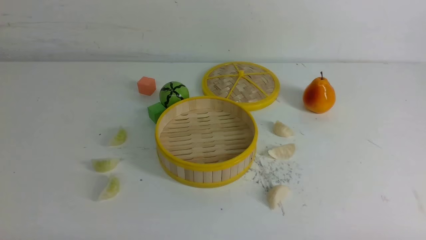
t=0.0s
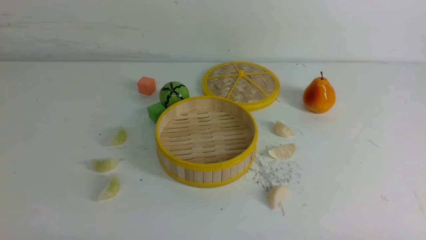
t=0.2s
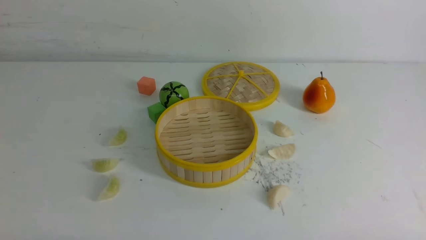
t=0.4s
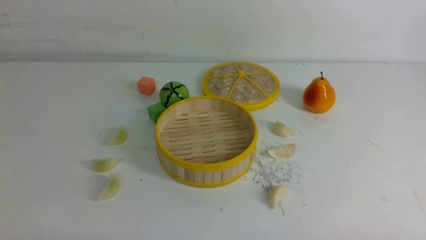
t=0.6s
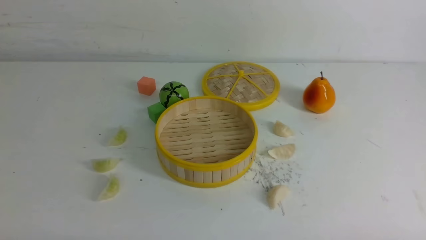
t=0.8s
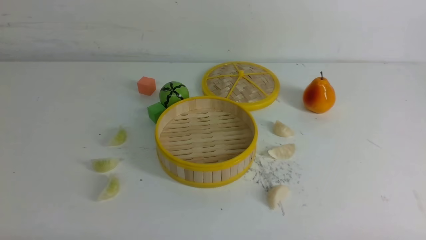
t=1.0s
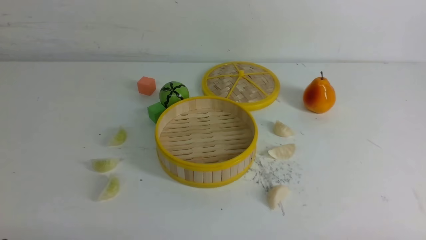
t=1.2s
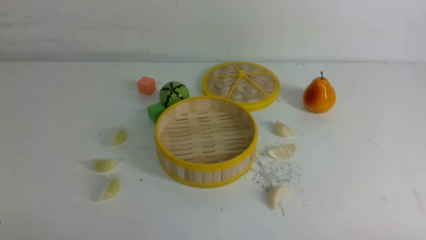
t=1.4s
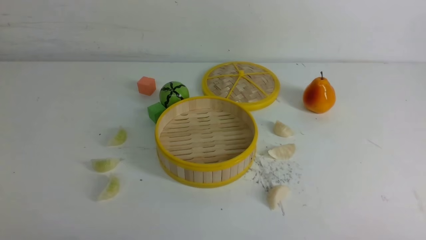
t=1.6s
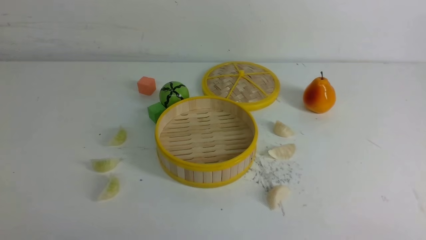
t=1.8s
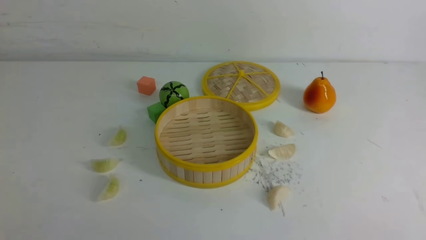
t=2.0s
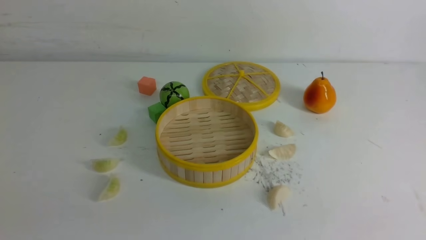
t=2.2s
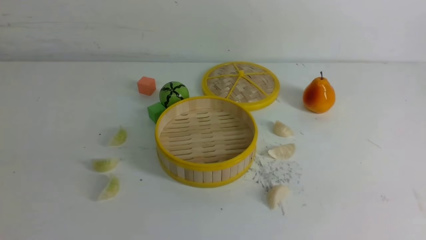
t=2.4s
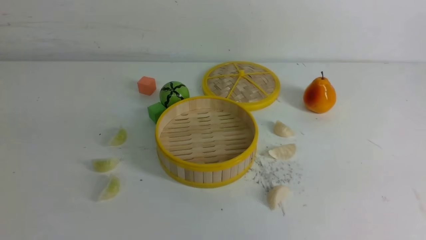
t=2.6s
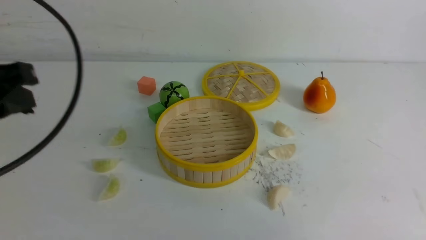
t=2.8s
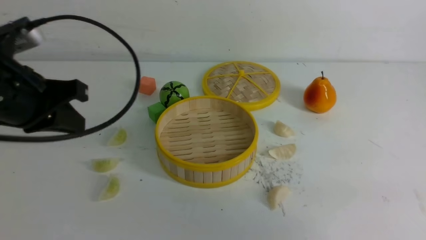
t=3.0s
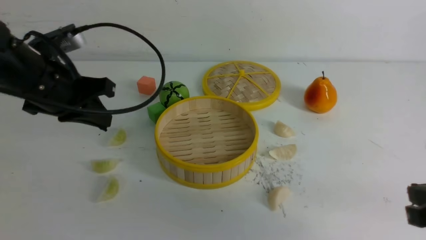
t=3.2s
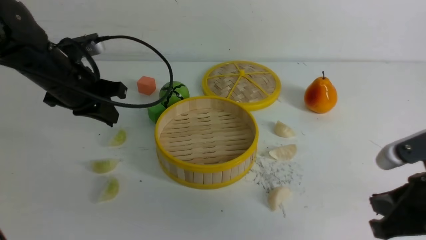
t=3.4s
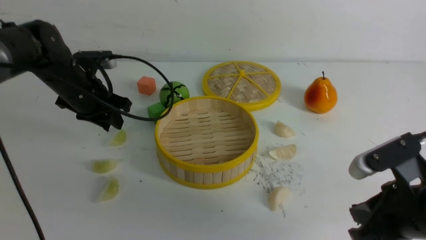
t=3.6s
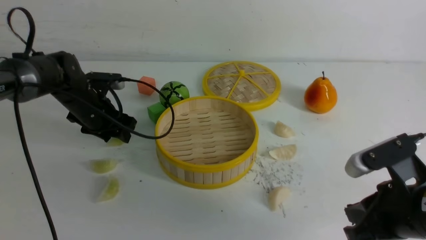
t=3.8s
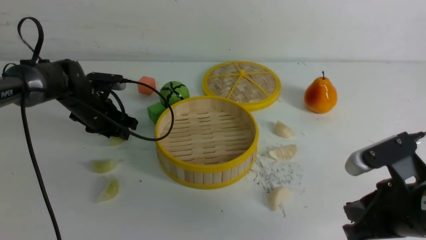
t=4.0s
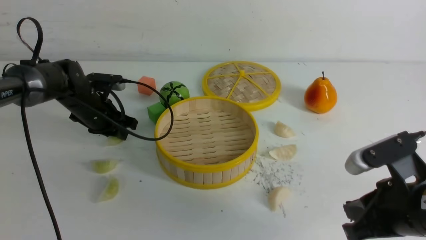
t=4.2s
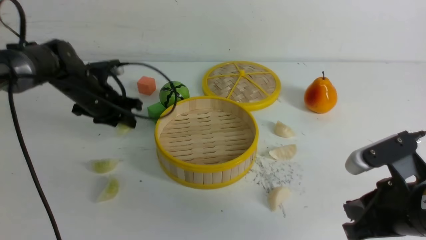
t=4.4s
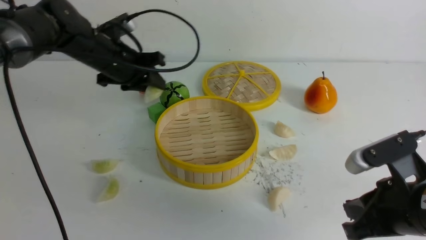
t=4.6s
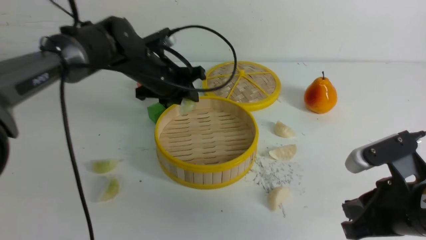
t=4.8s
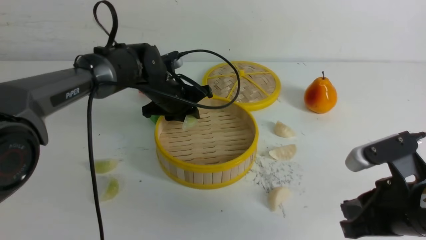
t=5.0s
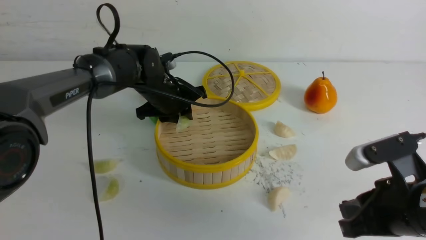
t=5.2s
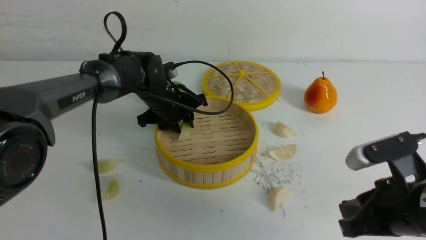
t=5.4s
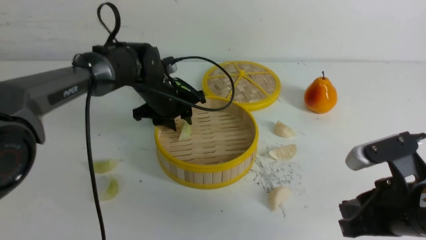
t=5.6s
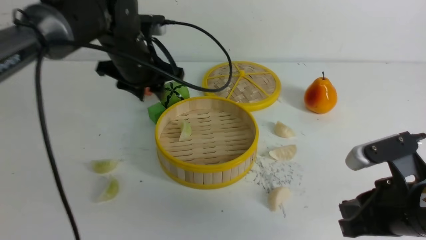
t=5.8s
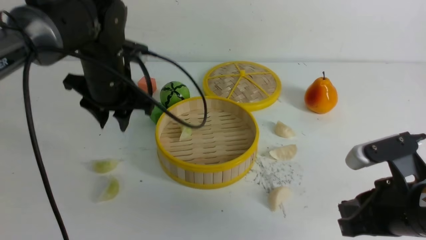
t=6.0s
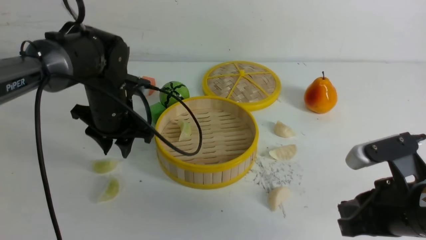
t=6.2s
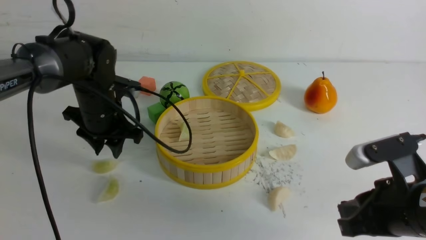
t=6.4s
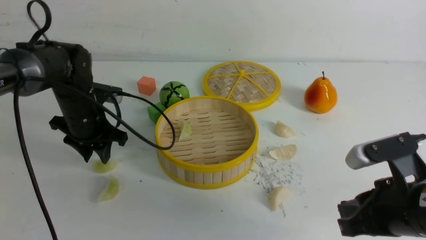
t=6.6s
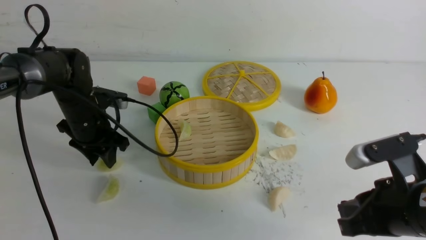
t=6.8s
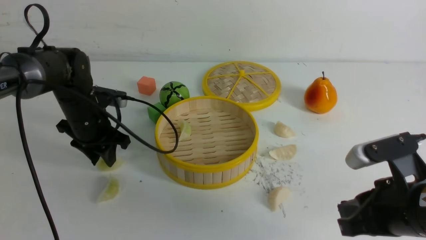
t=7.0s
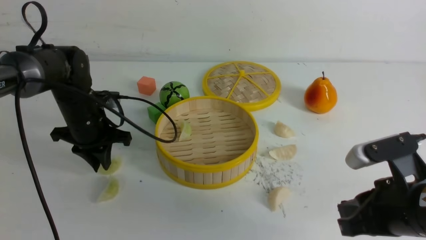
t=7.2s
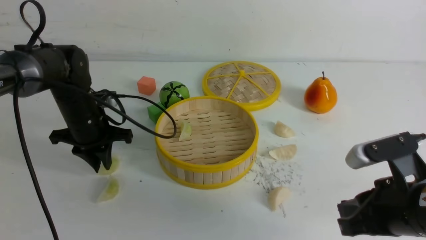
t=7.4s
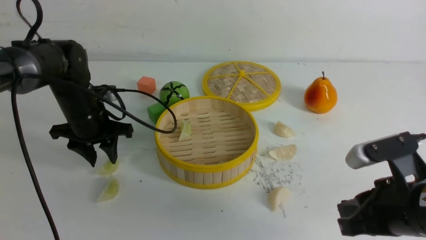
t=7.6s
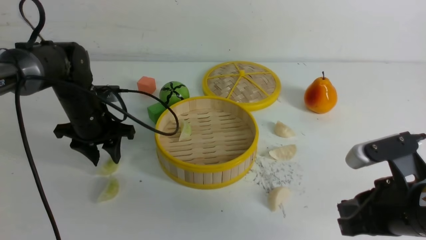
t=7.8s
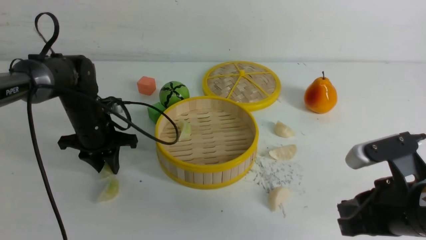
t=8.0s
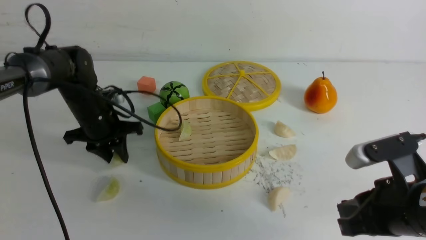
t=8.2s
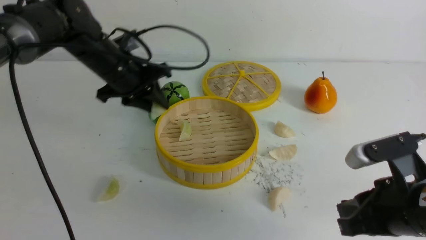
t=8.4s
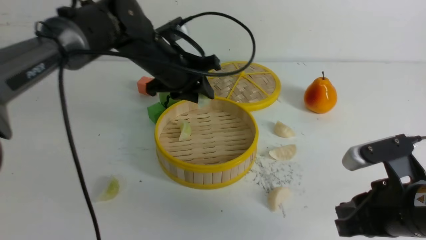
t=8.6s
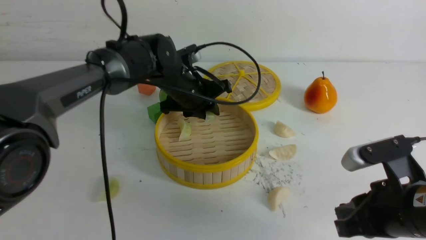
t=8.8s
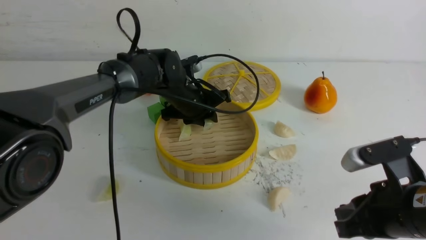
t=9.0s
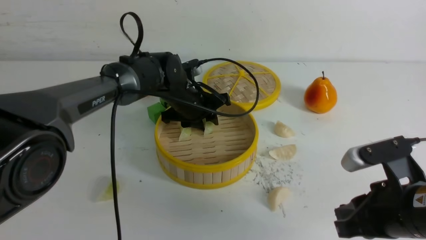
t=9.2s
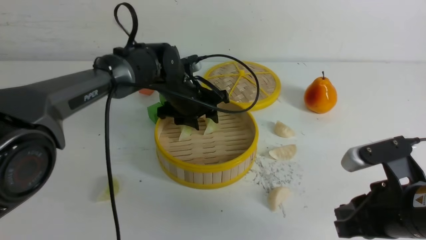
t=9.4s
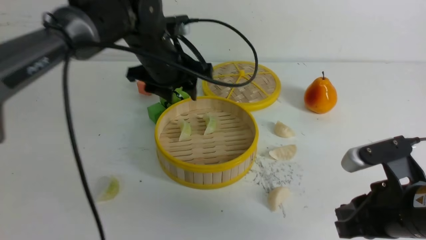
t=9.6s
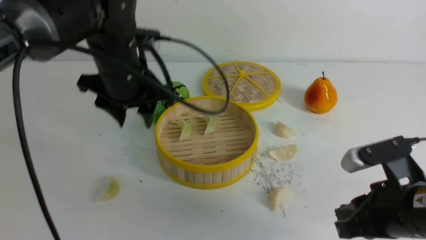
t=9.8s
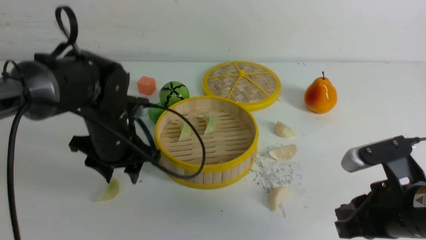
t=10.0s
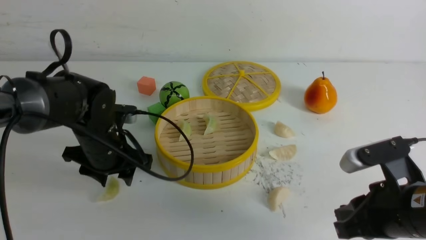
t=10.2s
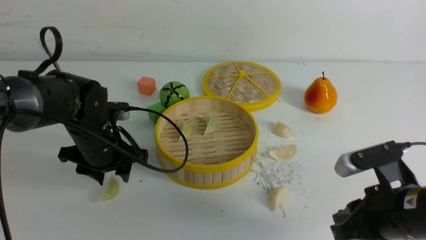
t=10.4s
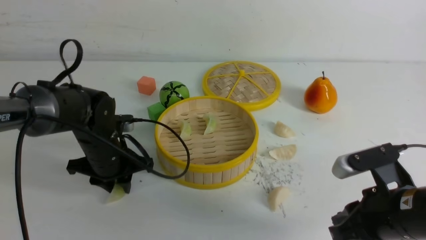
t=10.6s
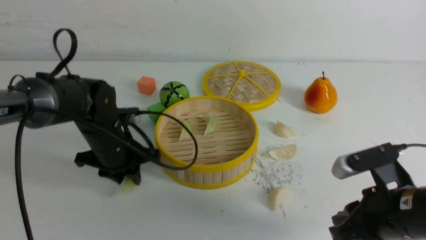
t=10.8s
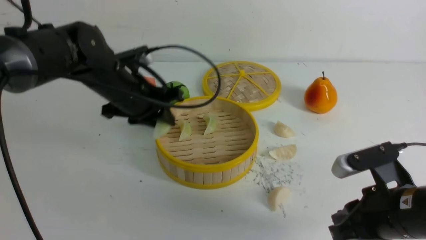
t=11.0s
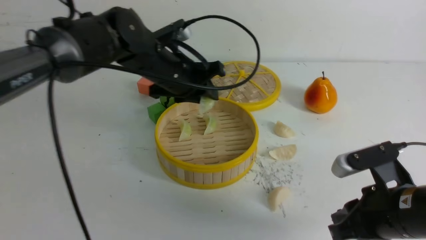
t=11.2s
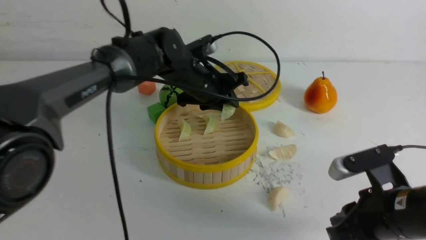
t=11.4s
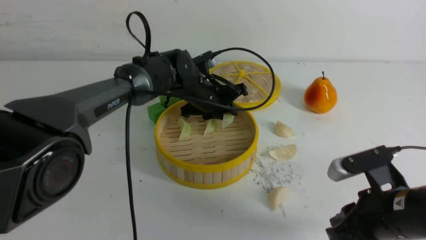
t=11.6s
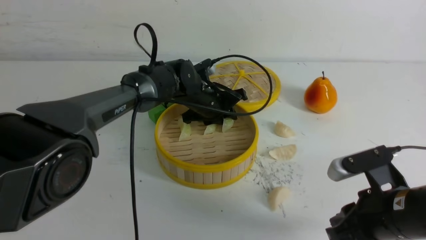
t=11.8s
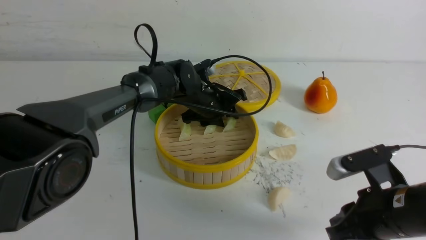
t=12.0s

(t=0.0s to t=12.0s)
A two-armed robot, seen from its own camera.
Task of the whole recording: put the dumplings into the steamer on the white table.
Step, t=0.0s - t=4.4s: use the left arm to grab a dumpling.
Step, t=4.6s - t=5.4s: use the left arm to put the dumpling into the steamer.
Step, t=5.8s - t=8.0s: use the left arm to grab a dumpling.
Step, t=8.2s - t=9.2s: use the left arm to put the dumpling into the steamer.
Step, t=9.4s - t=10.6s: use the left arm to grab a dumpling.
t=1.6s - t=3.0s: The left gripper is displaced forward and upward by approximately 25 cm, and closes its fingers; the right gripper goes some 10 cm forward and upward.
t=3.0s - t=4.4s: The left gripper is displaced forward and downward by about 20 cm, and opens up; the right gripper heads to the left and downward, covering about 10 cm.
t=4.4s - t=6.0s: The left gripper shifts about 10 cm backward, to the right and upward.
t=6.0s - t=7.6s: The left gripper shifts approximately 10 cm downward and to the left.
t=7.6s - t=9.0s: The left gripper travels to the right by roughly 15 cm.
t=9.0s - t=10.4s: The left gripper heads to the left and backward, covering about 15 cm.
t=10.4s - t=12.0s: The left gripper moves to the right and forward, approximately 20 cm.

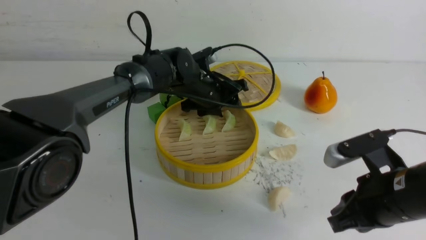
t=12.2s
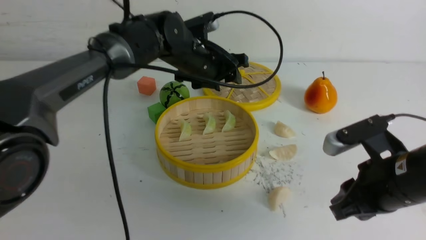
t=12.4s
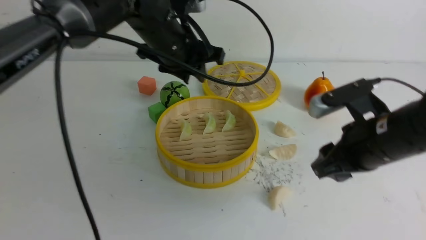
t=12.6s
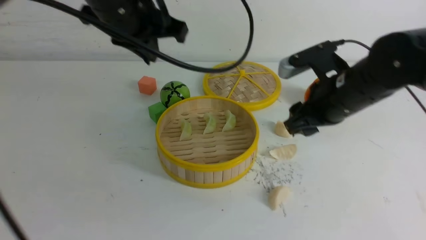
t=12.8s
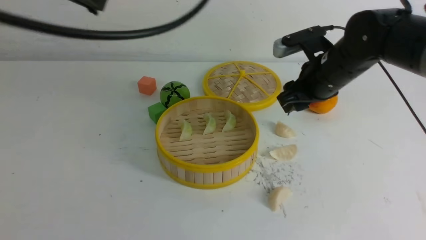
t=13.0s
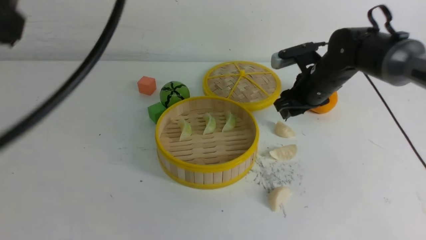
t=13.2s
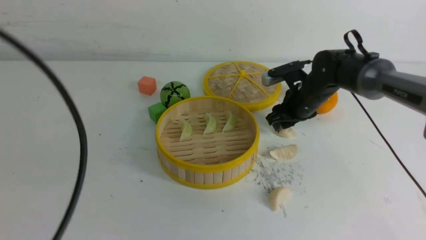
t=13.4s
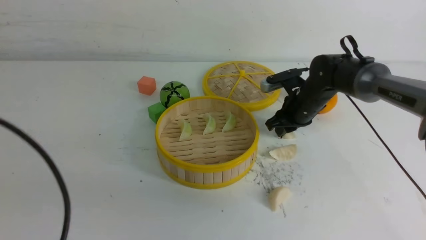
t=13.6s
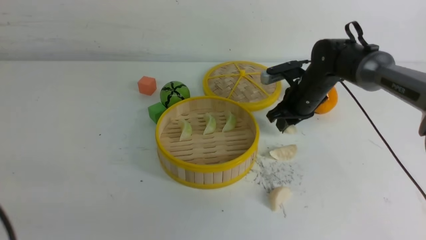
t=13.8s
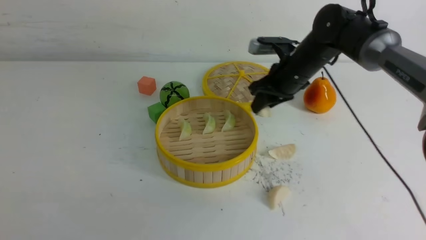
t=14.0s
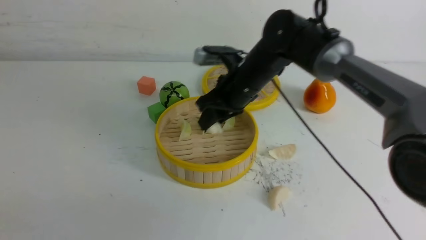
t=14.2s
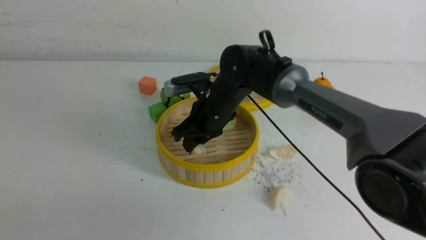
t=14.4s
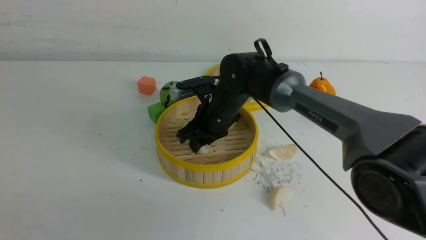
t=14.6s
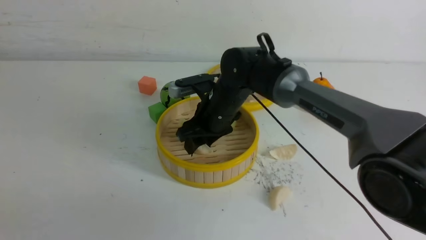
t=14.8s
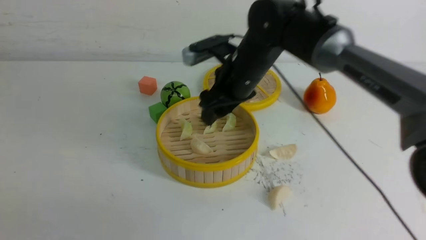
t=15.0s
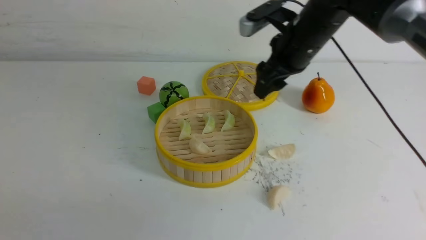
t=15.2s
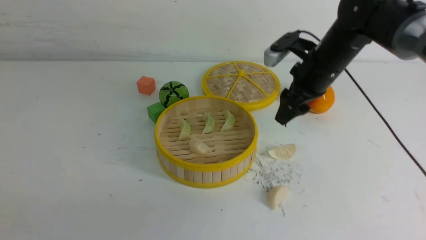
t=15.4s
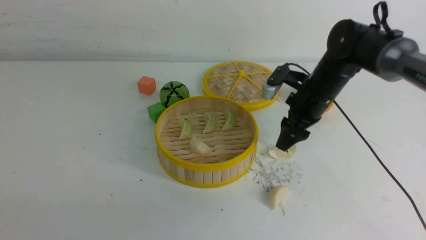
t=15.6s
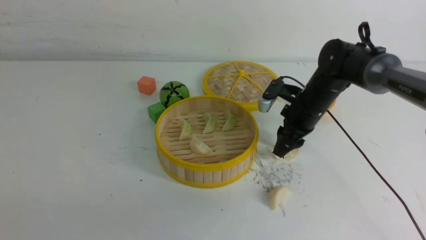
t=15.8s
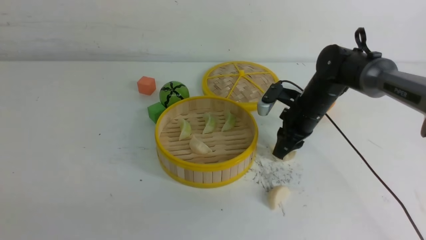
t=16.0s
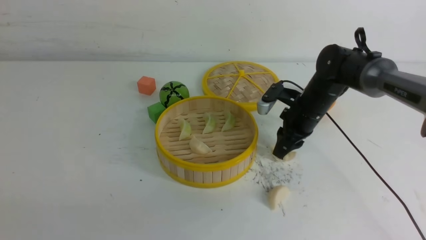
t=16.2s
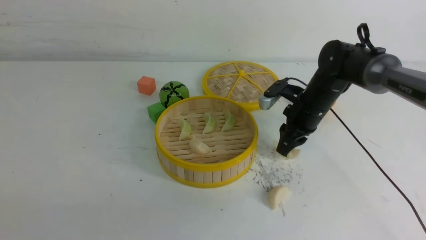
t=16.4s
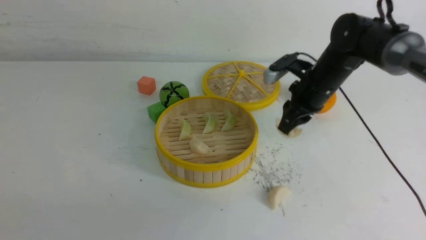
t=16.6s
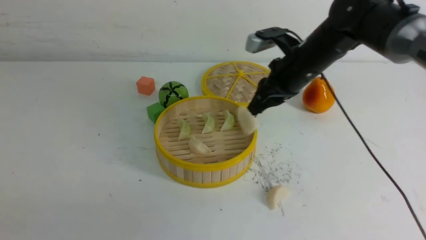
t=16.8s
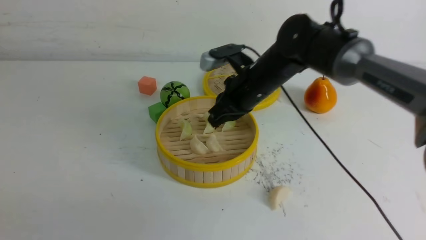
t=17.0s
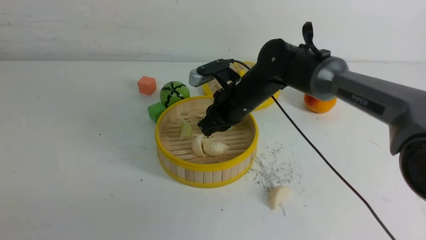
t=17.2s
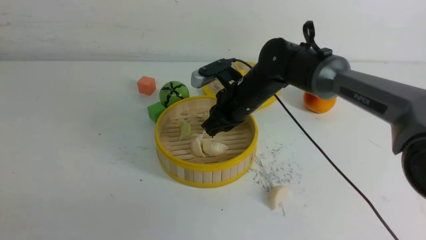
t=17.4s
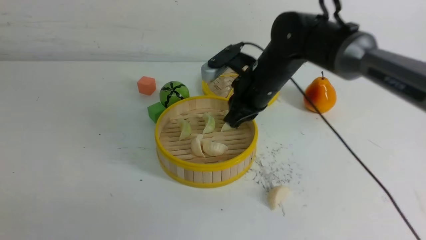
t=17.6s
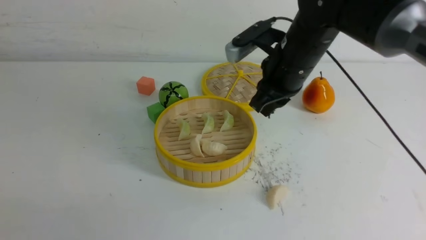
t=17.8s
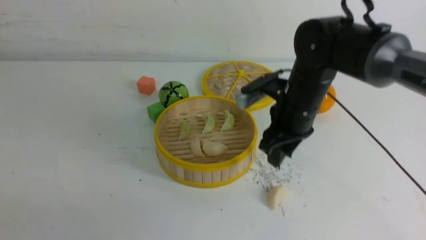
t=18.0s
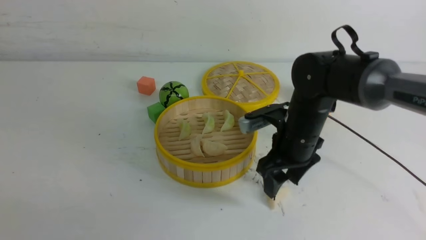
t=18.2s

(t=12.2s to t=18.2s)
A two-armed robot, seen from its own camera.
Task of the whole recording: put the dumplings into the steamer on the white table.
Step, t=12.4s - t=13.6s: use the right arm to grab a dumpling.
Step, t=13.8s - t=14.8s: use the right arm to put the dumpling into the steamer.
Step, t=15.0s - t=16.4s: use the right arm to grab a dumpling.
Step, t=16.6s - t=17.4s: use the right arm to put the dumpling into the steamer.
t=12.2s - t=13.8s: The right gripper travels forward by roughly 25 cm, and opens, then closes again. Meanwhile the left gripper shifts about 50 cm backward and to the left, and closes.
t=13.8s - t=15.2s: The right gripper goes about 10 cm upward, moves roughly 15 cm to the left and comes back, and opens, while the left gripper shifts by some 5 cm.
t=15.2s - t=16.6s: The right gripper heads downward, covering some 5 cm, and closes its fingers.
t=16.6s - t=18.2s: The right gripper goes some 10 cm backward, moves approximately 10 cm to the left and comes back, and opens up.
